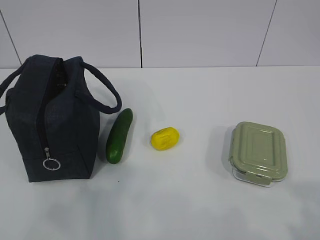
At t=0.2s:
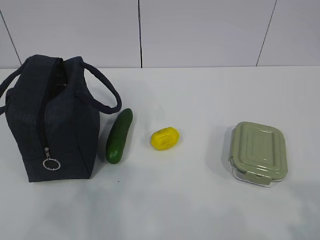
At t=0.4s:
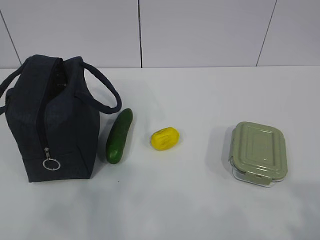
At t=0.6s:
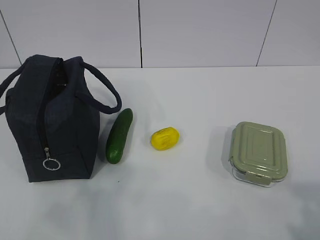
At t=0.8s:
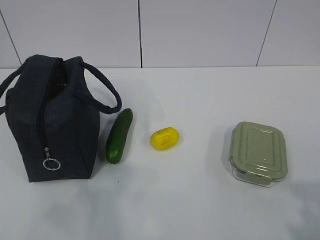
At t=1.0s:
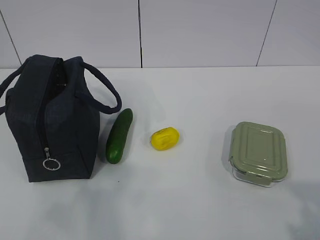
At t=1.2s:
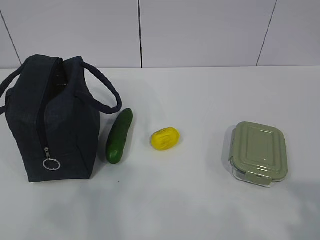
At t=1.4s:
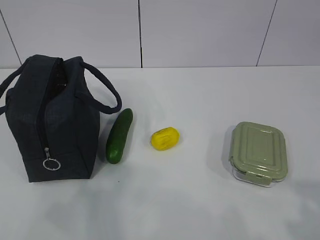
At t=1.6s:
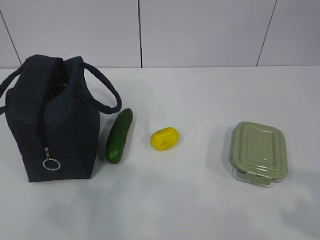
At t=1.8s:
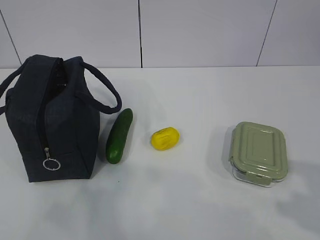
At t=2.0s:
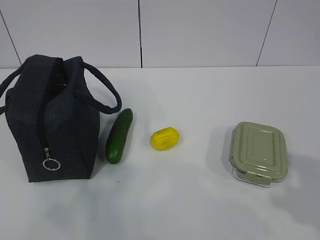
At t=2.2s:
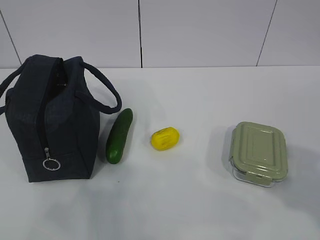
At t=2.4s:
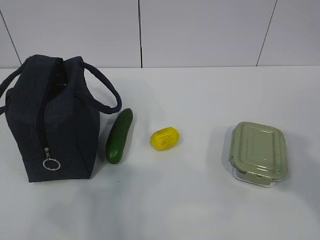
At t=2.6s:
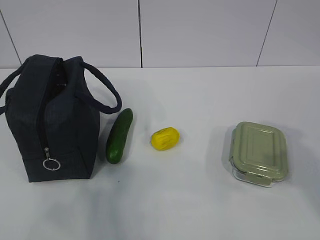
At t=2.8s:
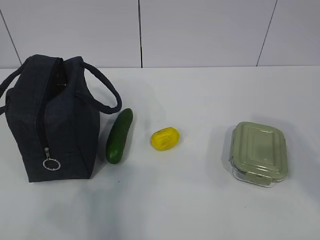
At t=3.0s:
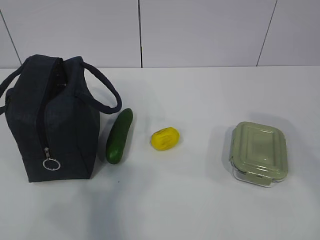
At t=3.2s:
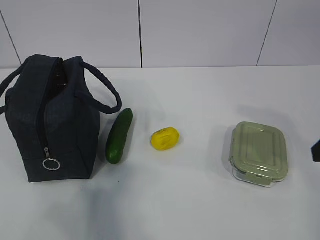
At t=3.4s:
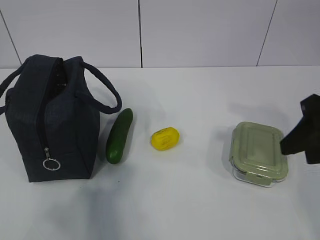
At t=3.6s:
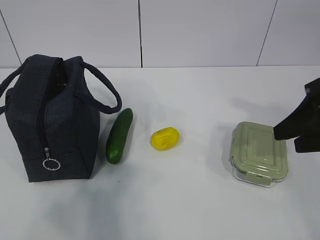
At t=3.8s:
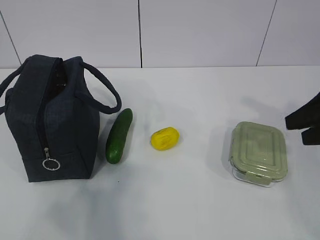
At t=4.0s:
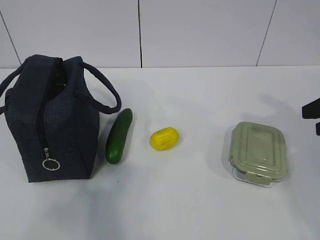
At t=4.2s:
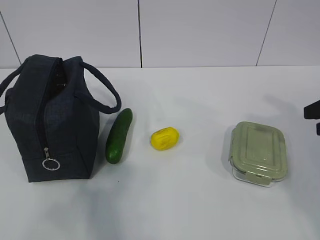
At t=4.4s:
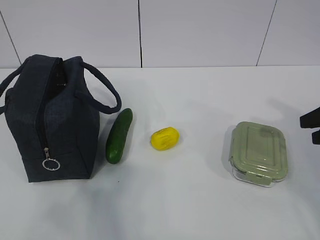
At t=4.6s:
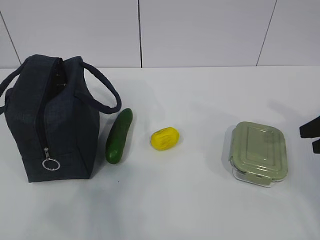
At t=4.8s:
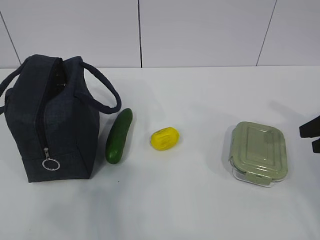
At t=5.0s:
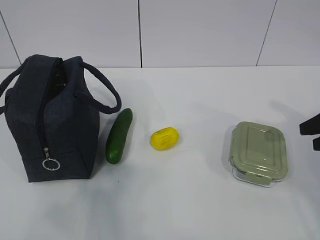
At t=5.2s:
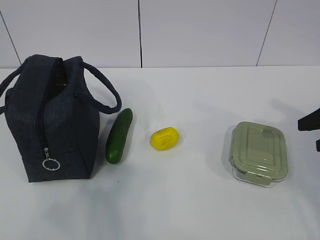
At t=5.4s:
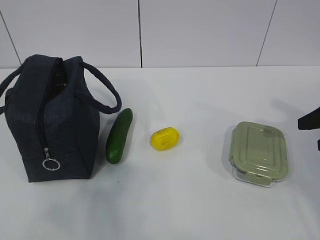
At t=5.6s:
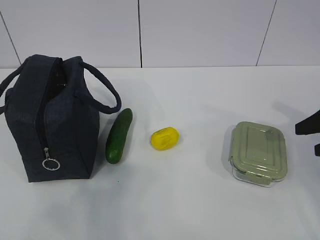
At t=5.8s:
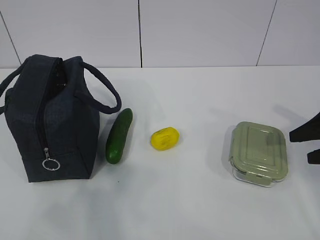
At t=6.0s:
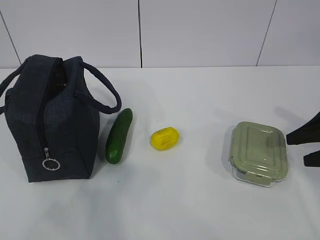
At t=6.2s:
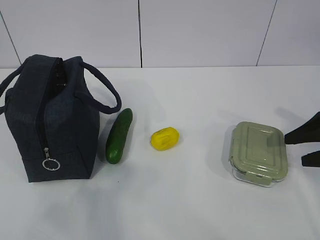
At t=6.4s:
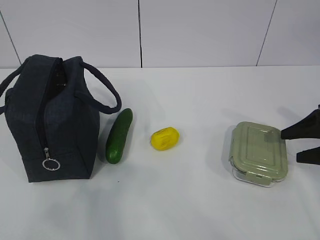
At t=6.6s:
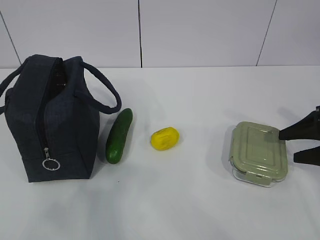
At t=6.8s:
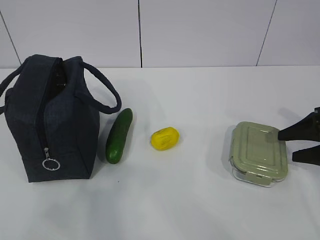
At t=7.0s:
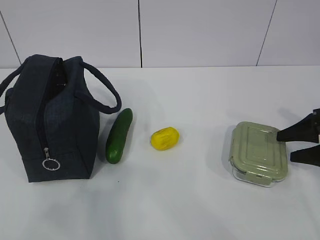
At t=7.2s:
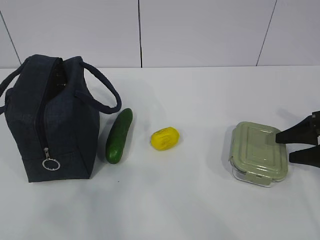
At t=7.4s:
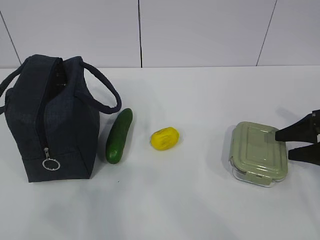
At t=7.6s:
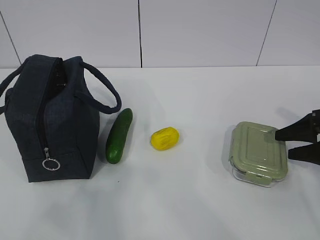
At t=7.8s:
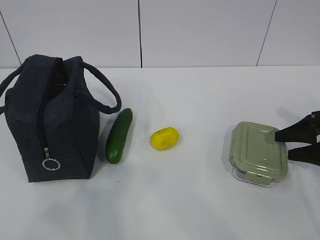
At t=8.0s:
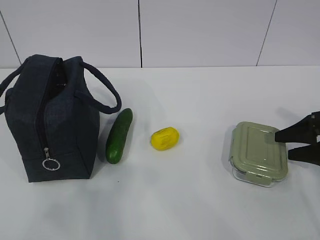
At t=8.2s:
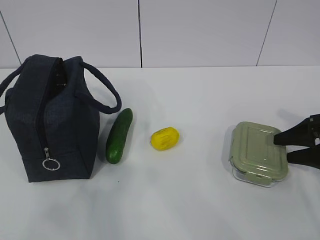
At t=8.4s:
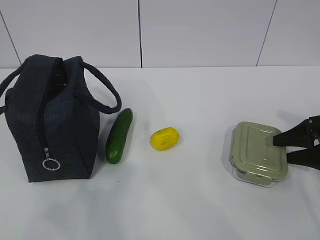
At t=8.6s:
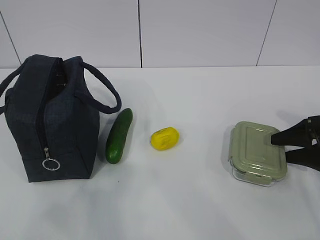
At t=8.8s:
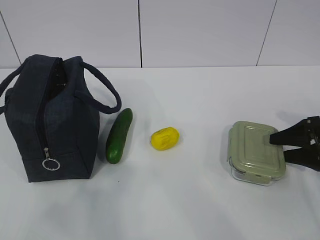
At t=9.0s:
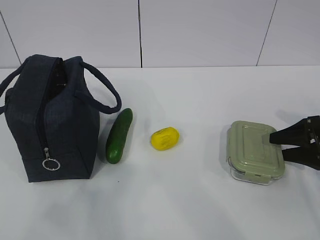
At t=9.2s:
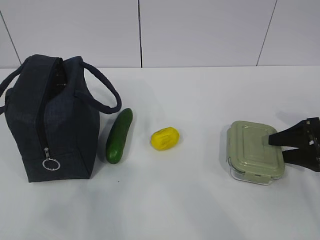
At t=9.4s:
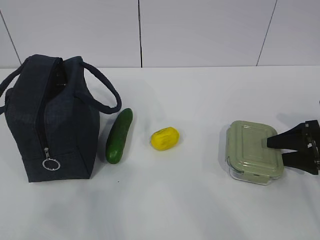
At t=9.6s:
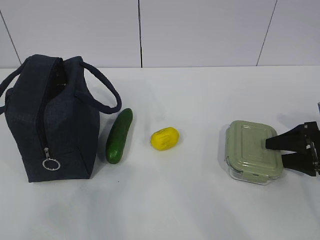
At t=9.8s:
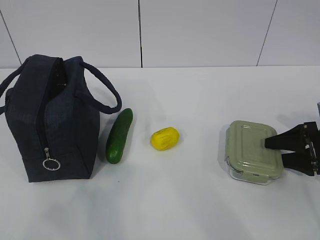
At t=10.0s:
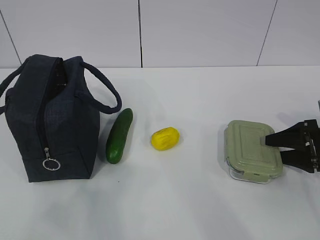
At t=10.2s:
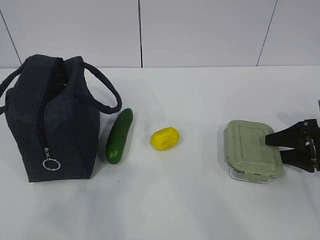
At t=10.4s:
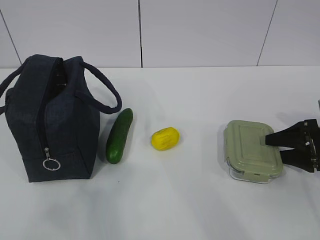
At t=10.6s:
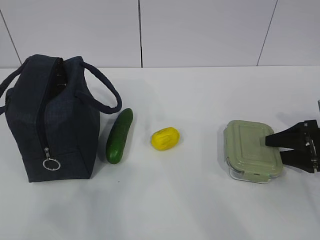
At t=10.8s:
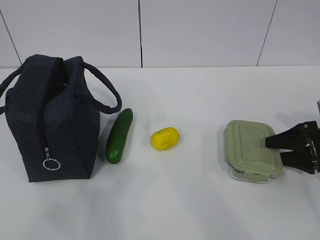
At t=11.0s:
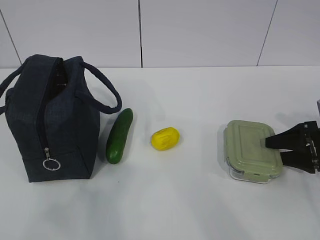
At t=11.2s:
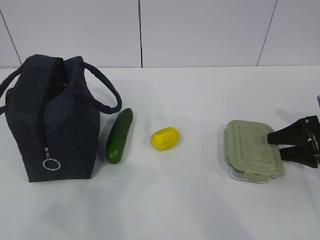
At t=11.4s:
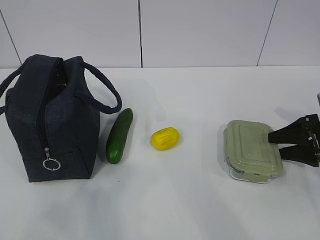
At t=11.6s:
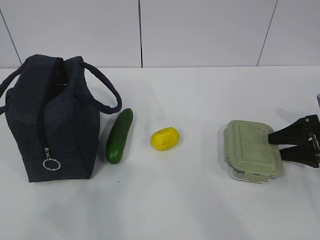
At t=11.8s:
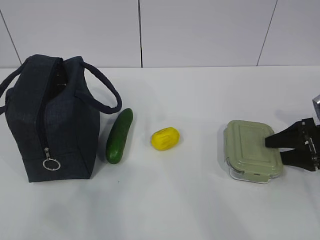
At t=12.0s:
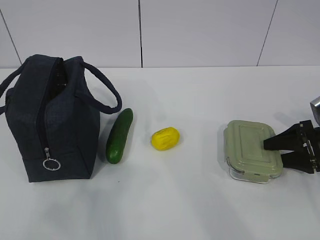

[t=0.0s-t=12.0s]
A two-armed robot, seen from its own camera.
t=3.0s to t=4.4s: The right gripper heads forward and to the right, covering roughly 10 cm.
t=4.4s to t=6.0s: The right gripper shifts some 5 cm downward.
t=6.0s to t=7.6s: There are only small adjustments of the grippers.
t=7.6s to t=12.0s: The grippers make only small movements.

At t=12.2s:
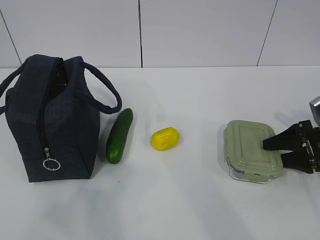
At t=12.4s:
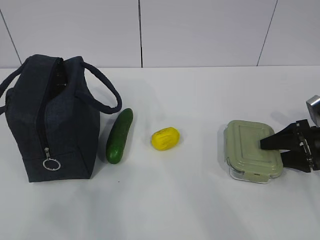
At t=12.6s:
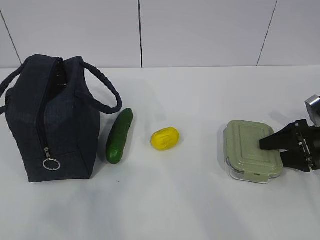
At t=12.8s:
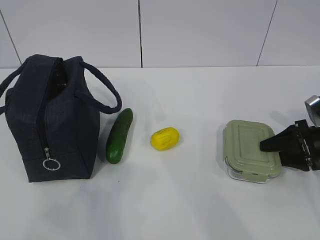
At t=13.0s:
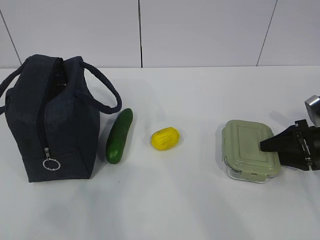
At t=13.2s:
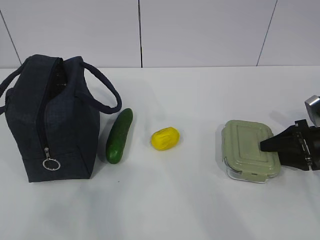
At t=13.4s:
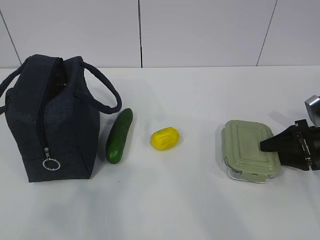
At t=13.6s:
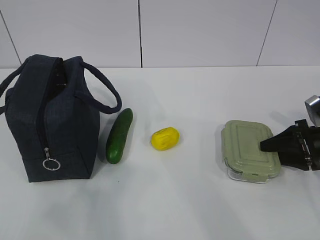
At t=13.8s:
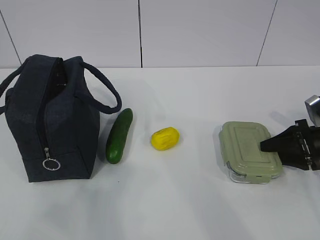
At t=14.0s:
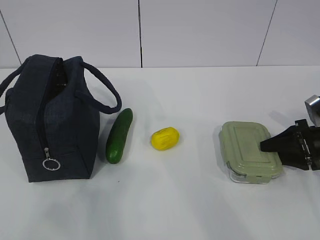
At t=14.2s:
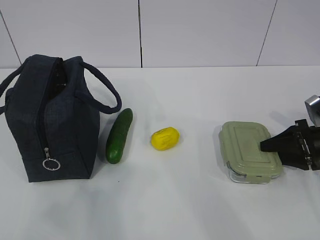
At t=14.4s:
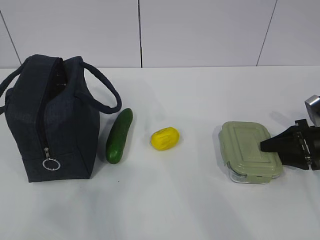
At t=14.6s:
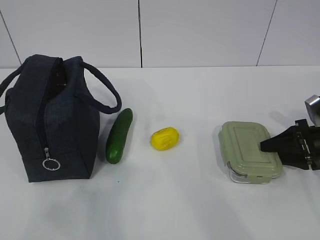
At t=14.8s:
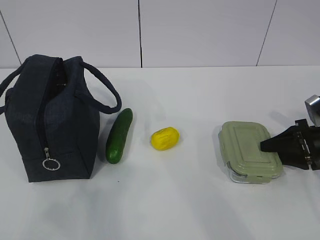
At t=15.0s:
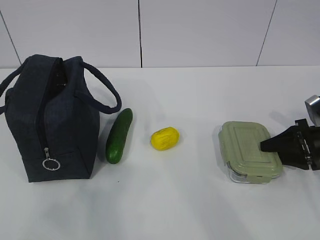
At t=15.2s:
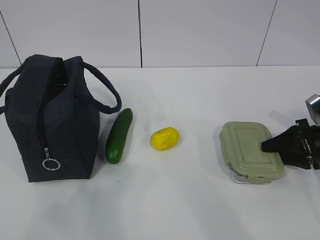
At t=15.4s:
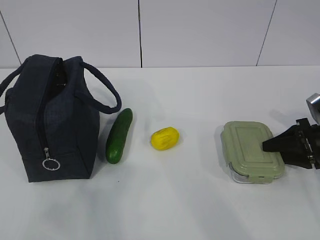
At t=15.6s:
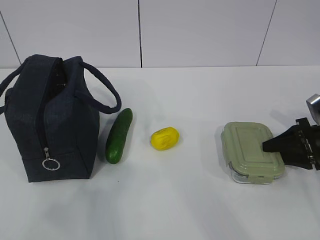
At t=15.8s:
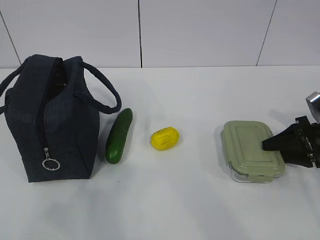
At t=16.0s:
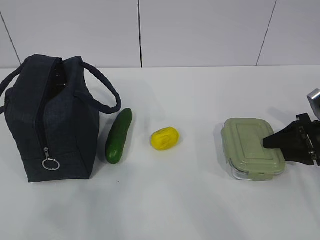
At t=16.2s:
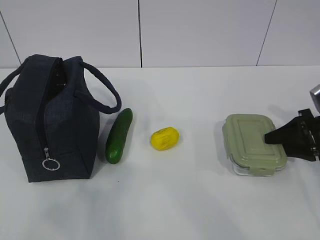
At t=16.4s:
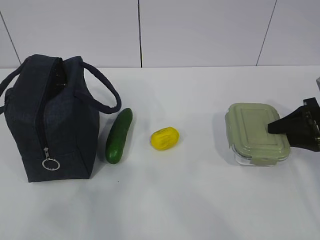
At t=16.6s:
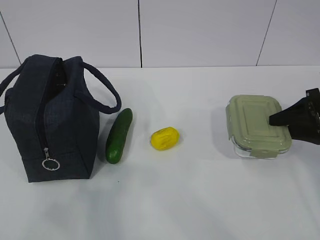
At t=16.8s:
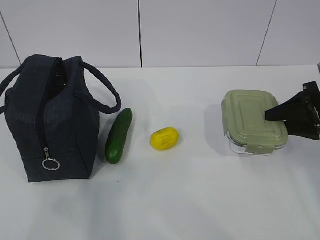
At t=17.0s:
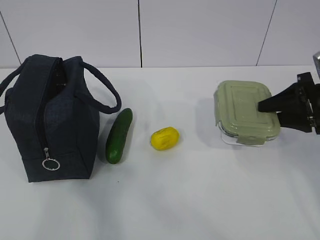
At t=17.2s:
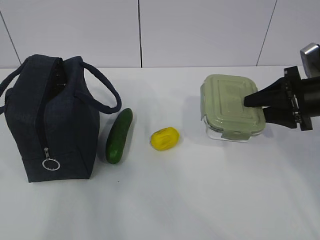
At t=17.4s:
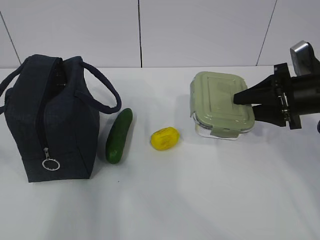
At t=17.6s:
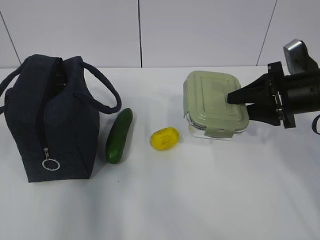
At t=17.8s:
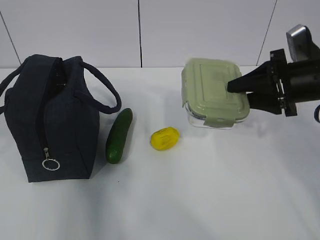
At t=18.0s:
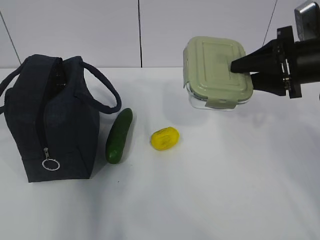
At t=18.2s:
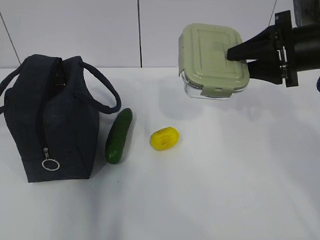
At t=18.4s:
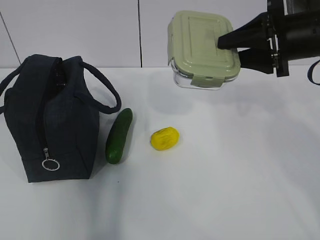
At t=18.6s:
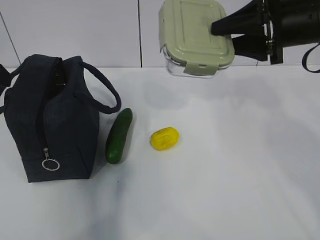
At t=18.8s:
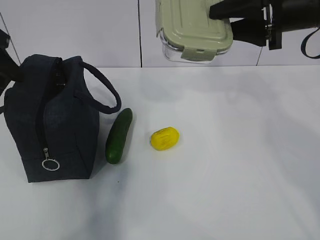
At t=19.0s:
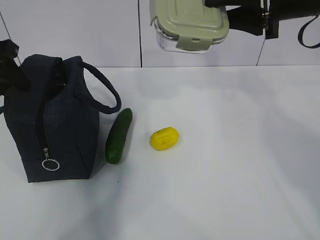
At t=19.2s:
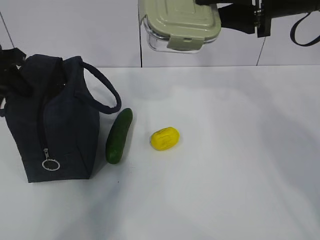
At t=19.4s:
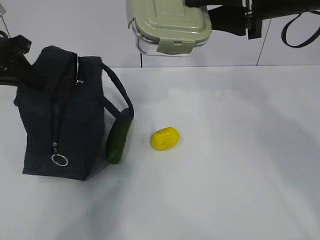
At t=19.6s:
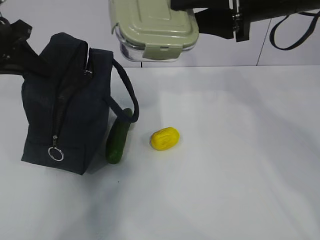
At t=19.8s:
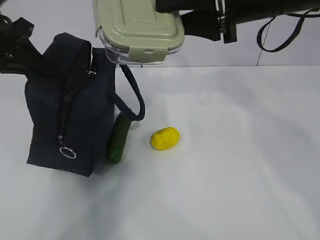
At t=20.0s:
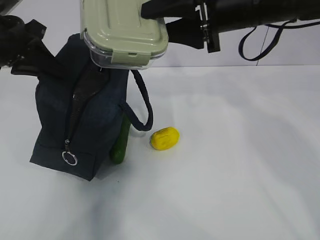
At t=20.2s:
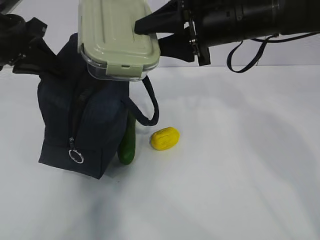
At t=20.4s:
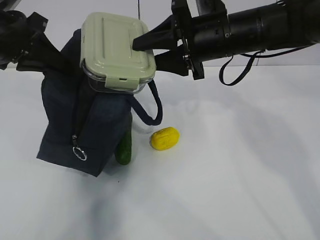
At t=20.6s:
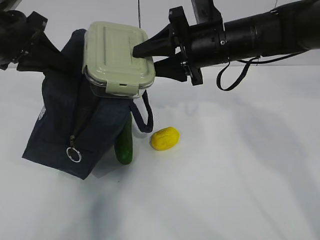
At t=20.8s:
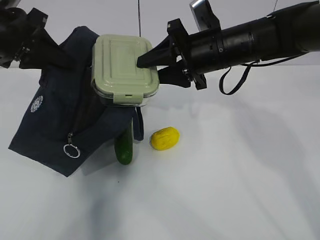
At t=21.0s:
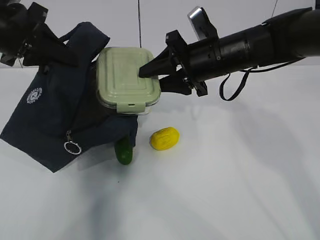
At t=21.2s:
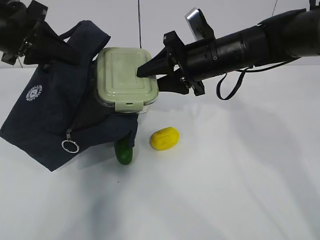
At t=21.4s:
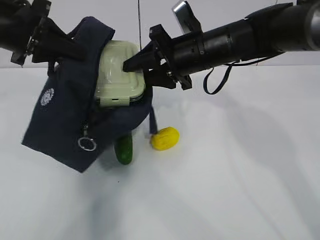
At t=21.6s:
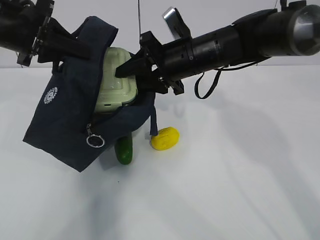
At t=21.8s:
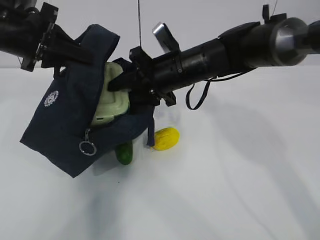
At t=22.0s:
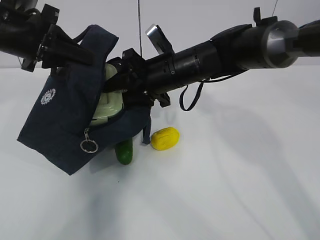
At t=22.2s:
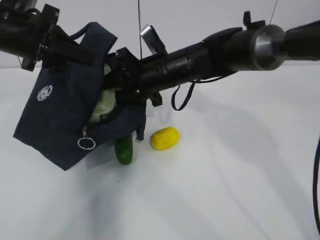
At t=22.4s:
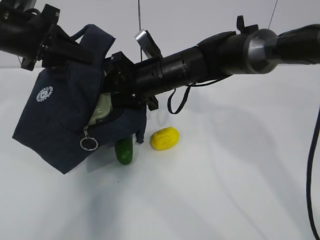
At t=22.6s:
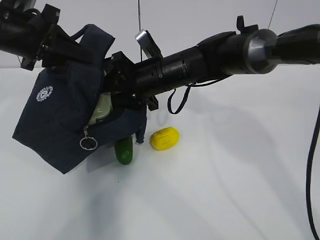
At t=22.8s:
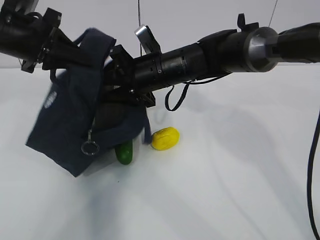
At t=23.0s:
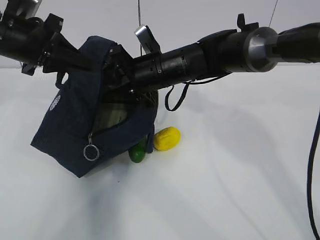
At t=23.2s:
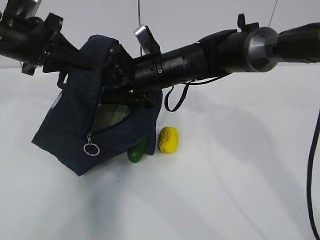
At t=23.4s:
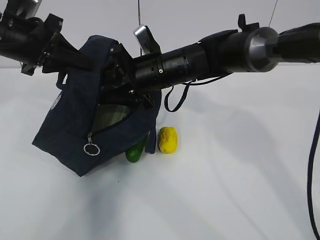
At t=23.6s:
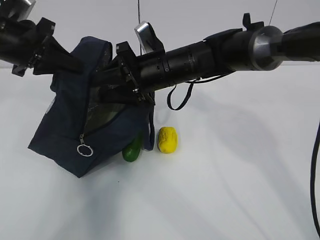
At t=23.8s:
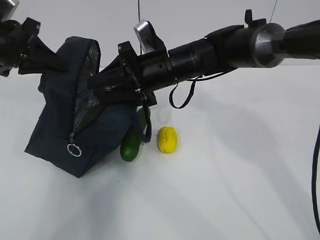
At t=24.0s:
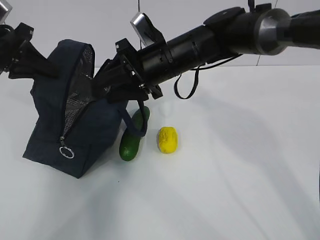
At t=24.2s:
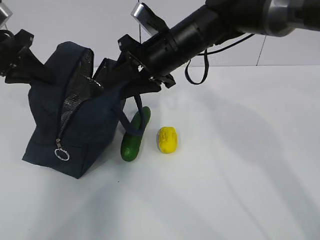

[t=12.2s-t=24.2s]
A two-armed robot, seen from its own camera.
Step, t=17.0s to t=19.0s: Place it into the bag with your right hand.
Step, t=19.2s to t=22.6s: Grab the cucumber with your right hand.
t=12.2s to t=15.2s: Both grippers stay put.
t=15.2s to t=16.6s: The right gripper goes approximately 5 cm upward.
t=16.6s to t=18.2s: The right gripper heads upward and to the left, covering approximately 15 cm. Meanwhile the left gripper goes roughly 25 cm forward.
t=18.2s to t=19.8s: The left gripper heads forward, covering some 10 cm, and closes. Meanwhile the right gripper is displaced to the left and upward by roughly 15 cm.
t=19.8s to t=21.2s: The right gripper goes roughly 15 cm downward and forward.
t=21.2s to t=22.6s: The right gripper heads to the left, covering approximately 10 cm.
t=22.6s to t=24.2s: The left gripper moves to the left, approximately 5 cm, while the right gripper goes some 5 cm upward.
